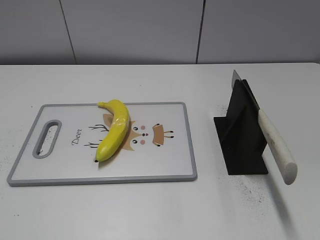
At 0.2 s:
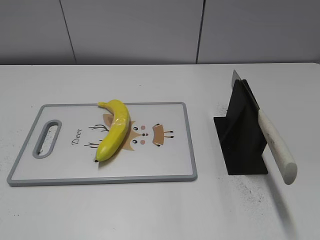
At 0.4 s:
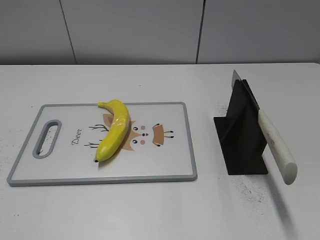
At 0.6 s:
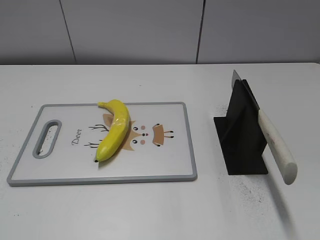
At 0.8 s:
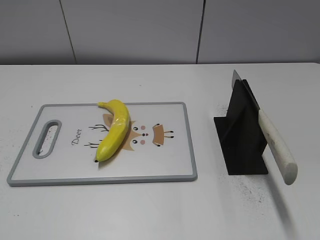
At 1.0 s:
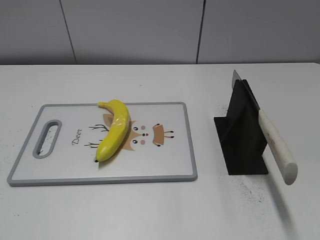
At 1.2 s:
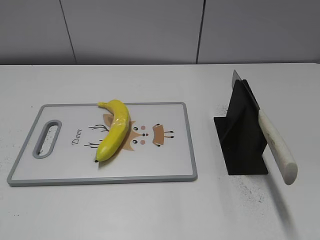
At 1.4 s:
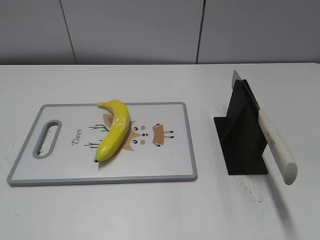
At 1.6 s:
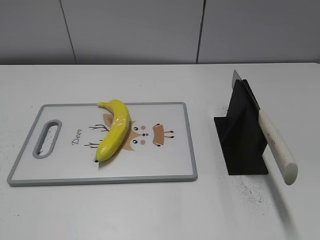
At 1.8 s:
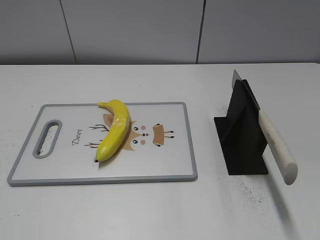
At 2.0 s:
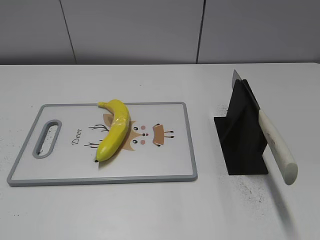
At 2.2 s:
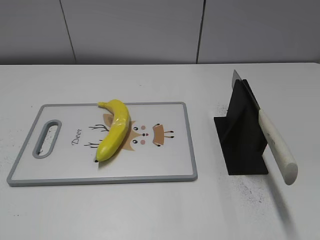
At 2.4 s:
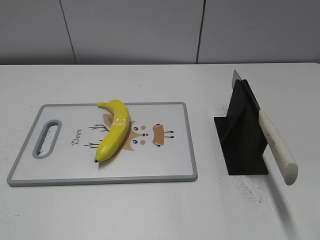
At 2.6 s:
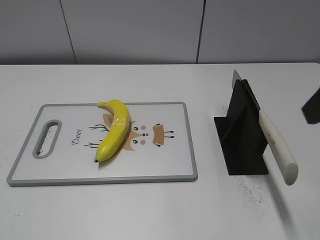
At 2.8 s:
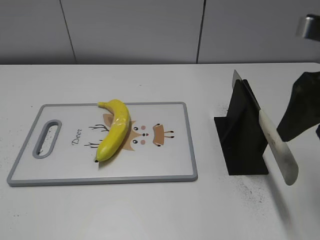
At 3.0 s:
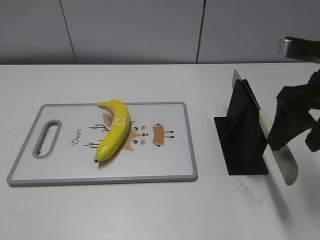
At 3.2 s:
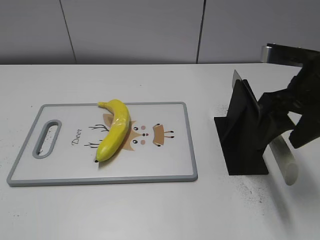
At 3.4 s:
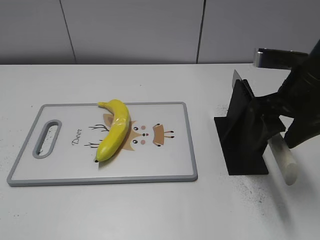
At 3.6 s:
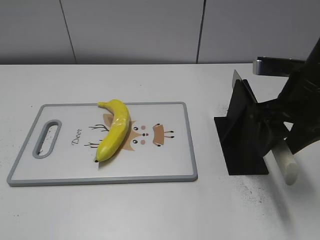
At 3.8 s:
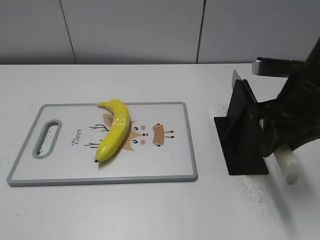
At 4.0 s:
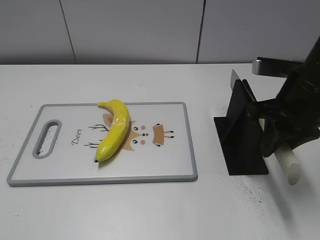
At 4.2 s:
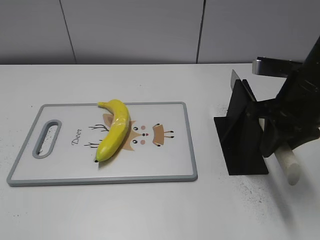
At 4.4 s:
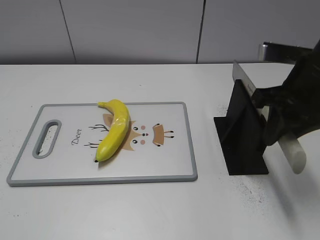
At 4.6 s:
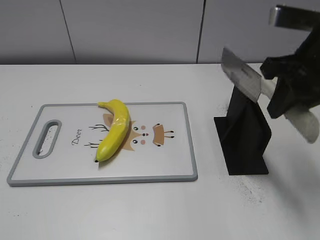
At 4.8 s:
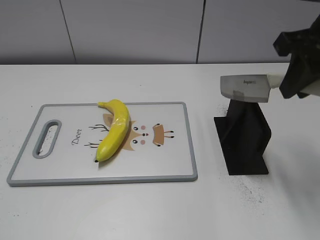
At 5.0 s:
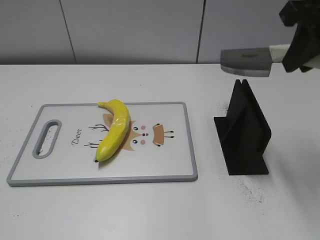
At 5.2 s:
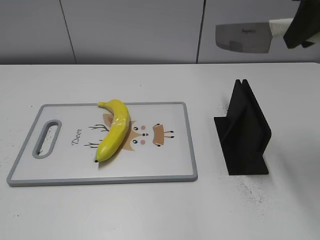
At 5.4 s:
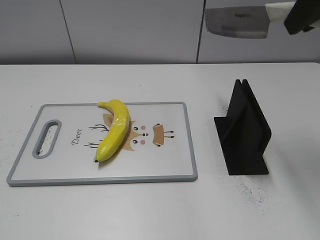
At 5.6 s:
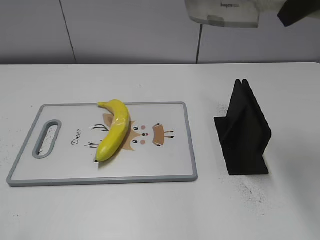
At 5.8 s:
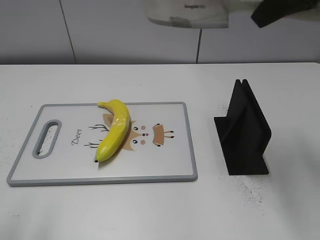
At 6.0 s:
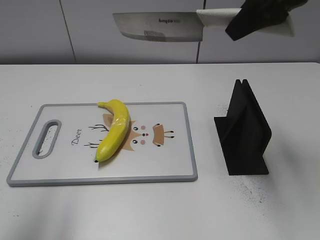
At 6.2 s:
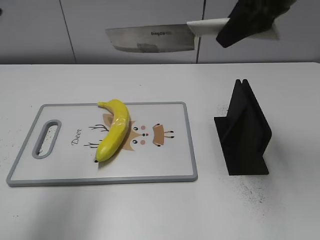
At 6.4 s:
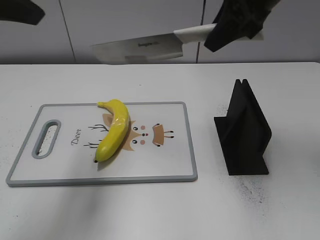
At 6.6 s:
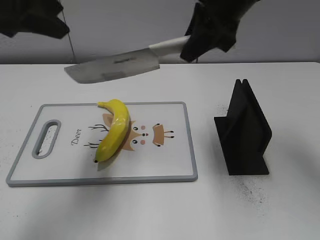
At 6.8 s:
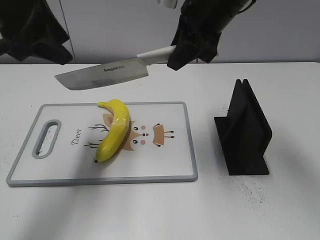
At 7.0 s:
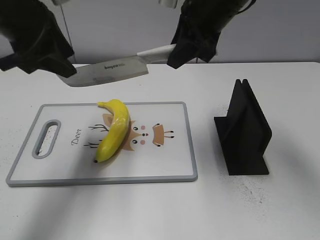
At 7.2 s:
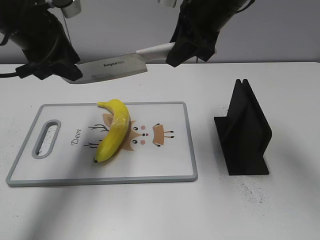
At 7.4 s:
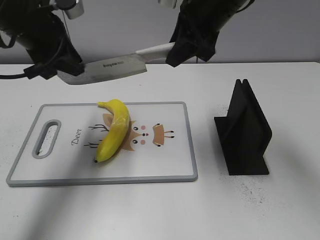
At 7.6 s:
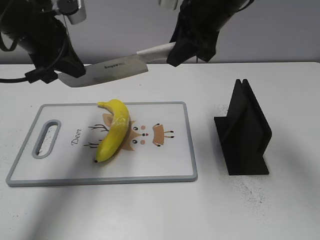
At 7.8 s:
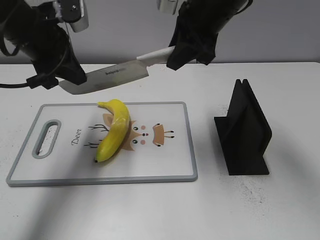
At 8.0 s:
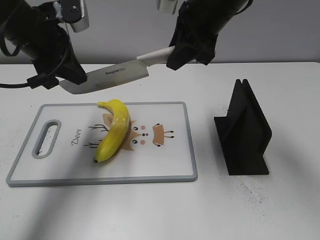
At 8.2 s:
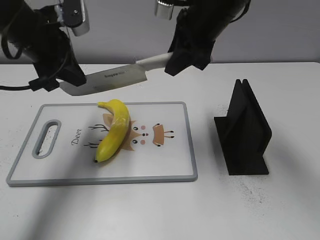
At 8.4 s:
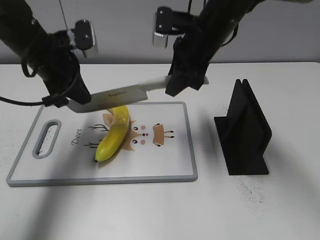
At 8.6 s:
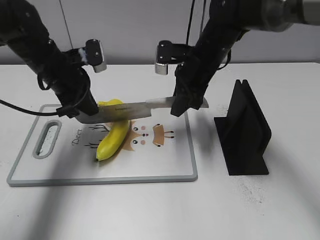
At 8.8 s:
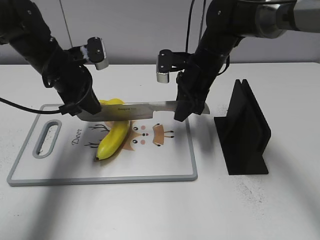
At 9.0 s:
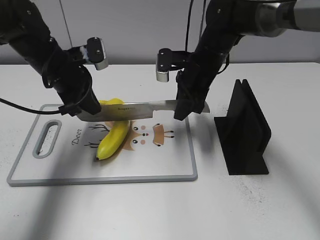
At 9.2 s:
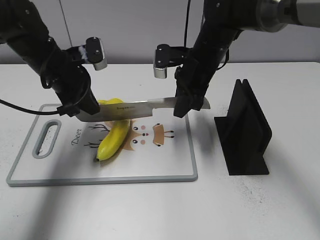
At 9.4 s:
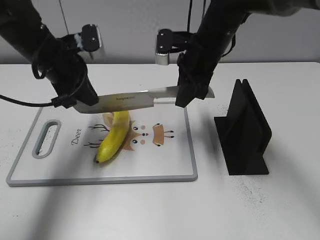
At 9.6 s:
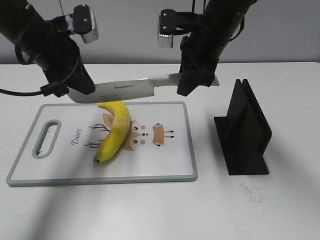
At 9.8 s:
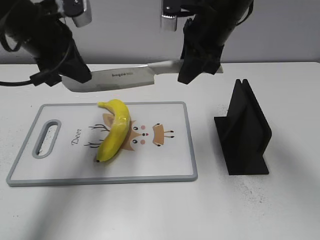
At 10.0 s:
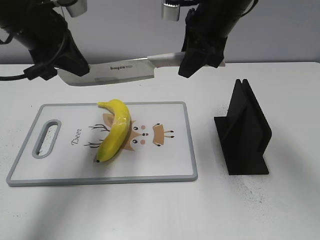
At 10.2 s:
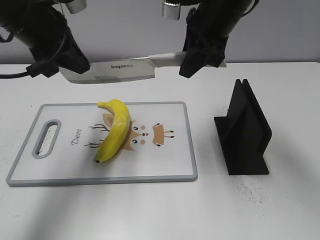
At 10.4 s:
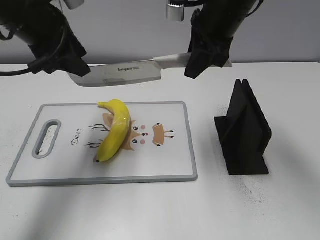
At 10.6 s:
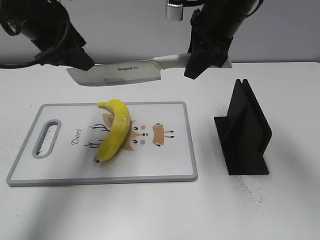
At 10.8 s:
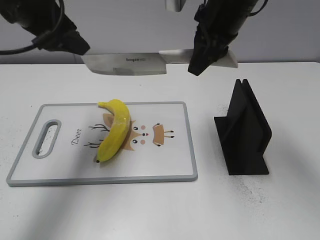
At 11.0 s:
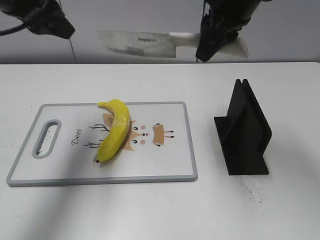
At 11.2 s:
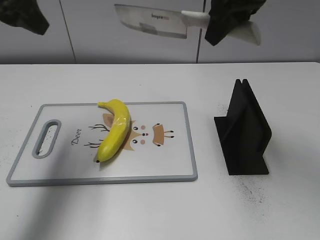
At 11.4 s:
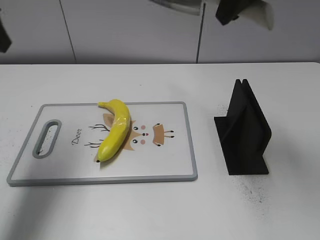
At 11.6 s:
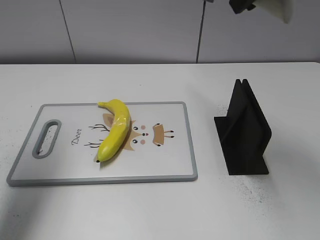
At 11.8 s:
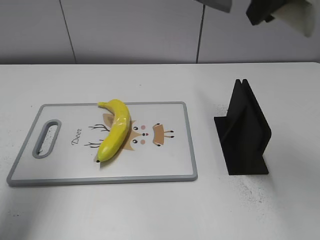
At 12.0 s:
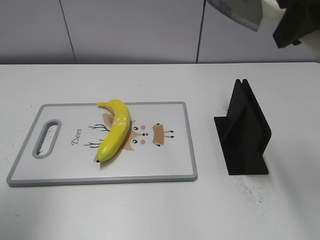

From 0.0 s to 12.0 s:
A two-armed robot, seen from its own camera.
Task of the whole recording: cut plastic banana.
Step, from 0.0 s to 4.8 s: Grab the knife handle with your right hand.
Step, from 5.0 s to 9.6 s: Lift the knife with your right hand.
Step, from 10.0 s to 11.2 s: Cut the banana with your right hand.
From 1.6 s to 3.0 s: The right gripper goes about 25 cm forward.
From 3.0 s to 4.4 s: The right gripper closes its fingers.
From 4.4 s to 6.0 s: The right gripper shifts approximately 15 cm upward. Meanwhile the left gripper goes about 20 cm forward and upward.
From 6.0 s to 7.6 s: The right gripper goes some 15 cm to the left, downward and forward, while the left gripper moves forward and downward, roughly 25 cm, and closes up.
From 7.6 s to 9.0 s: Both grippers travel together downward, about 10 cm.
From 9.0 s to 10.4 s: The two grippers go about 15 cm upward. The left gripper opens.
From 10.4 s to 12.0 s: The right gripper moves backward, upward and to the right, approximately 20 cm; the left gripper shifts some 20 cm backward, to the left and upward.

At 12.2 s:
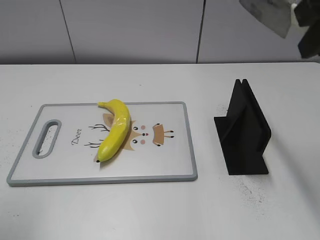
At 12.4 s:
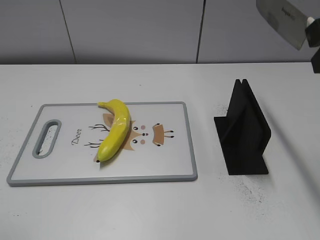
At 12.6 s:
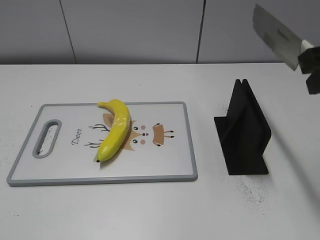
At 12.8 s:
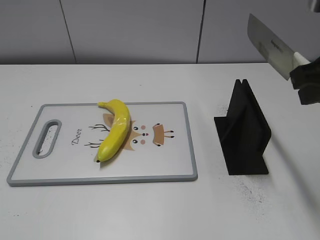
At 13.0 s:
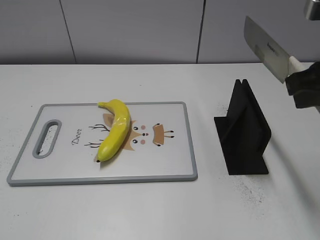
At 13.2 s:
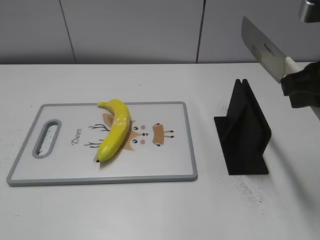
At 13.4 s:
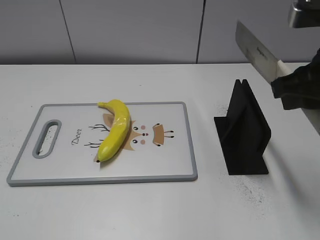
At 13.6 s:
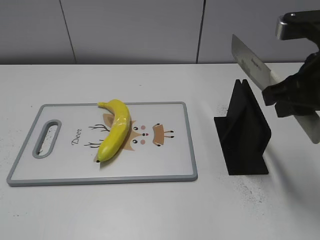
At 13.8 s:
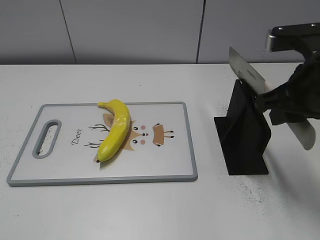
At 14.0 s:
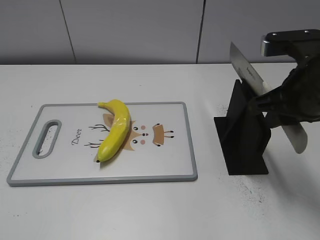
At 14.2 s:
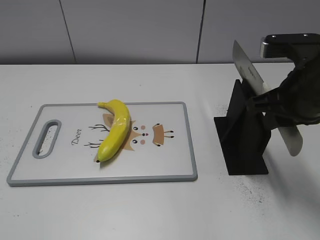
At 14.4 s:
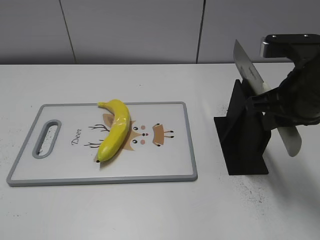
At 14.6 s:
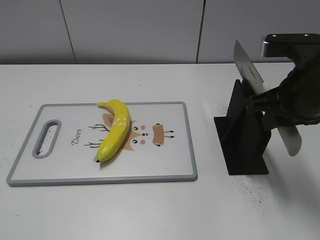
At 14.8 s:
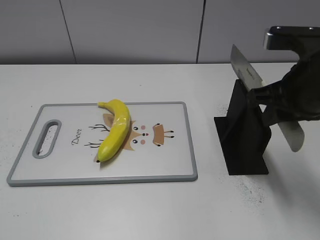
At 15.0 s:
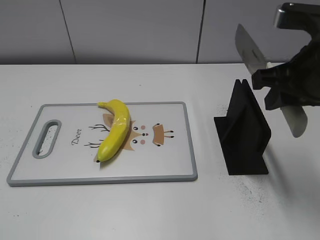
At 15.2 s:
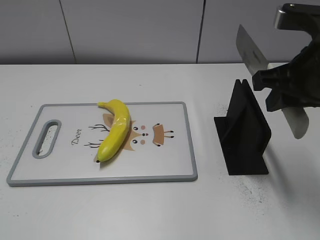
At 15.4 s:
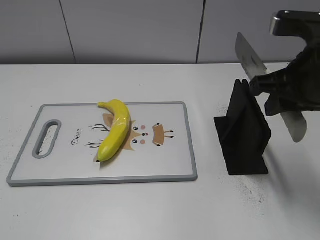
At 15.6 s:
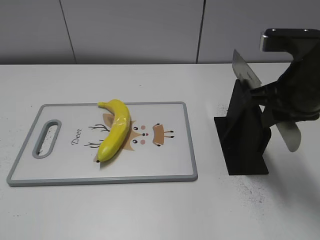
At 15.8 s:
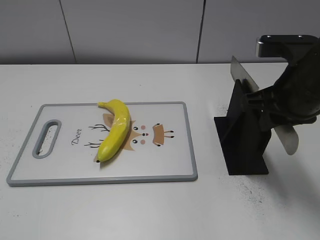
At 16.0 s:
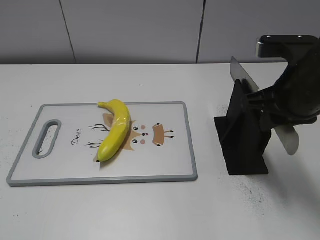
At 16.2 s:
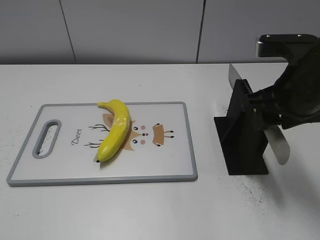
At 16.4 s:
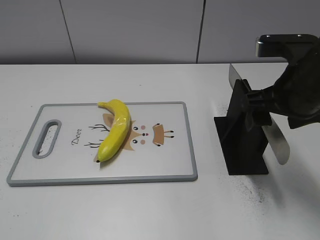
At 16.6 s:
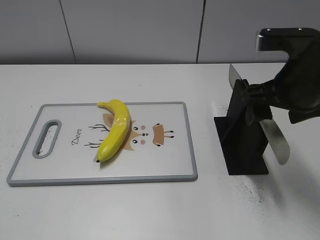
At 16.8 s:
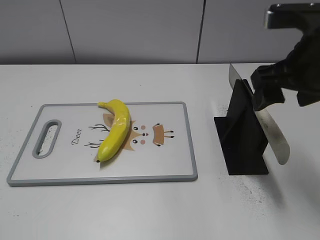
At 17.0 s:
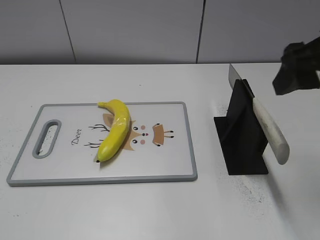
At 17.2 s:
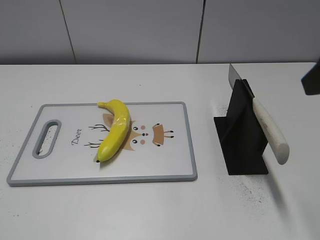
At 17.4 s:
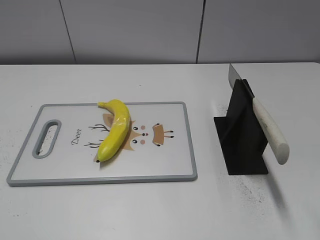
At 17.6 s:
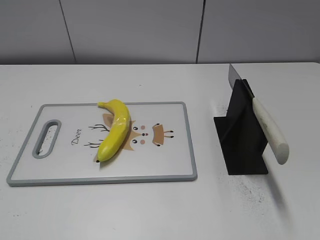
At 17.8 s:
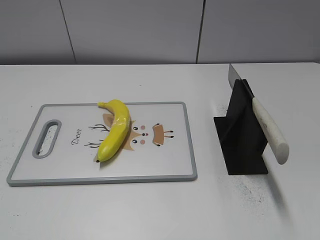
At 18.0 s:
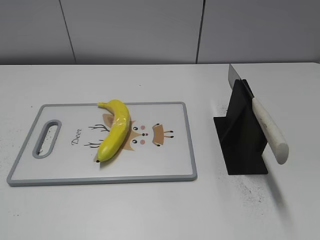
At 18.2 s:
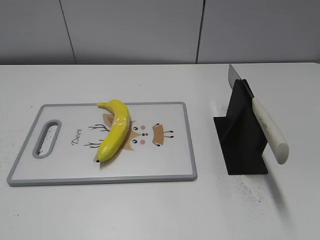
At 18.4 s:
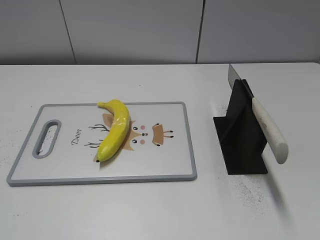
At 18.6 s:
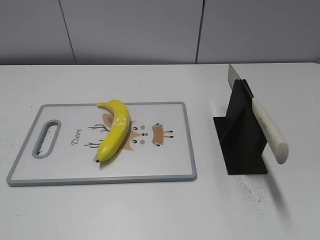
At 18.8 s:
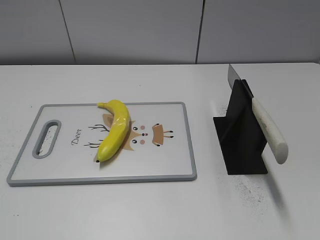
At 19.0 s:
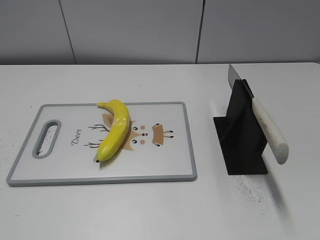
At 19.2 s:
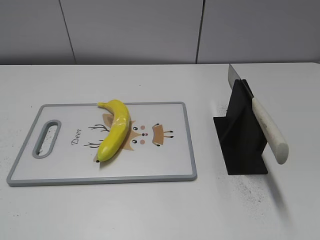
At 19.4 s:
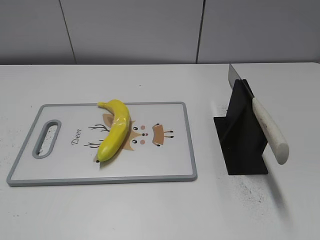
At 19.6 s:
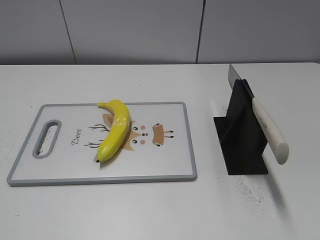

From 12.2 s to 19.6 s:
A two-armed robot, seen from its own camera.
Task of the whole recording: cut plastic banana.
Step, from 12.6 s to 19.6 s: Place the knife on the storage rack with your right hand.
From 12.2 s to 13.6 s: The right gripper heads downward, covering some 10 cm.
From 13.6 s to 15.2 s: The grippers move only a little.
From 15.2 s to 16.6 s: The right gripper opens up.
From 16.6 s to 18.2 s: The right gripper is displaced backward and to the right by approximately 25 cm.
